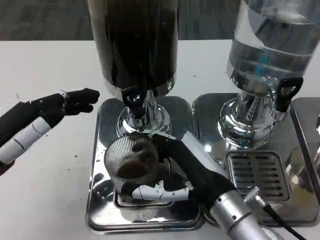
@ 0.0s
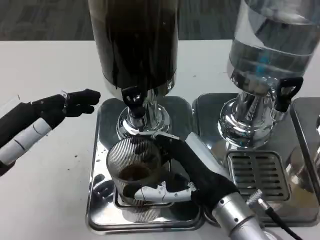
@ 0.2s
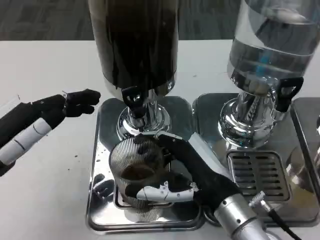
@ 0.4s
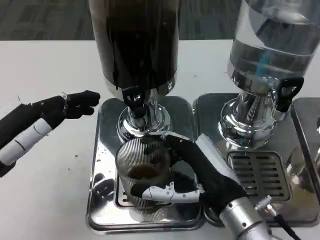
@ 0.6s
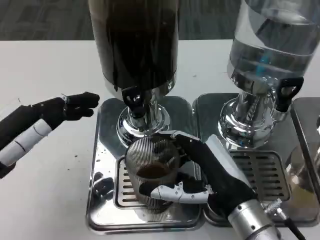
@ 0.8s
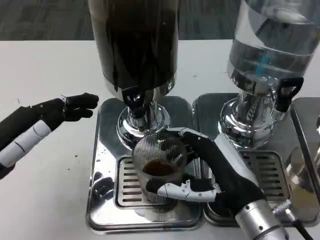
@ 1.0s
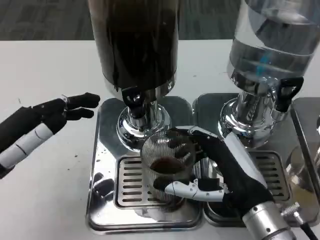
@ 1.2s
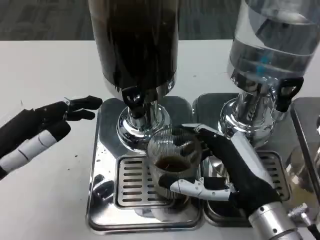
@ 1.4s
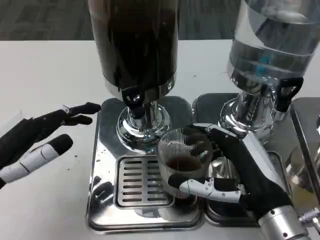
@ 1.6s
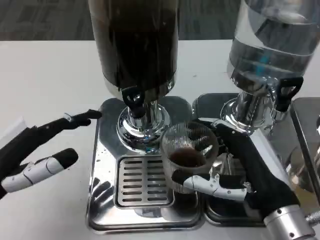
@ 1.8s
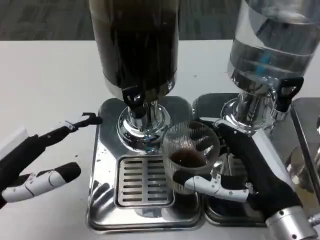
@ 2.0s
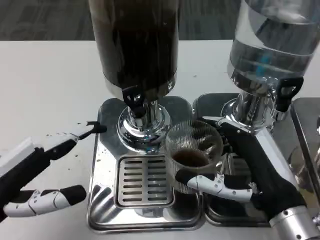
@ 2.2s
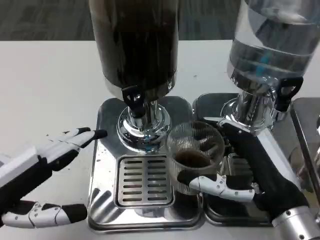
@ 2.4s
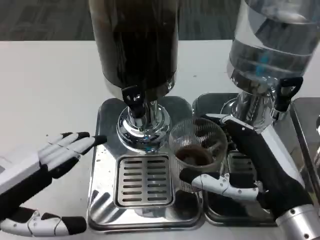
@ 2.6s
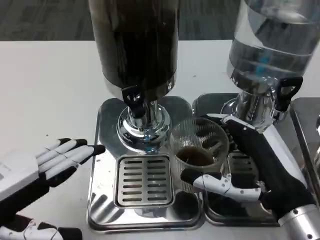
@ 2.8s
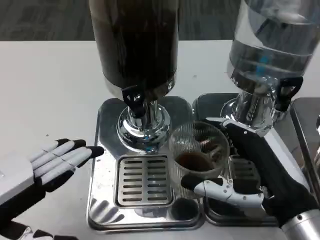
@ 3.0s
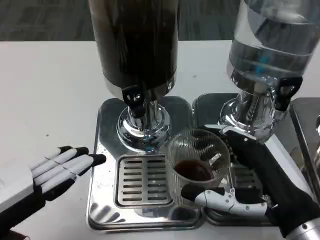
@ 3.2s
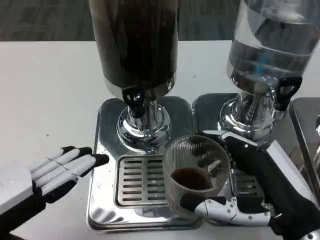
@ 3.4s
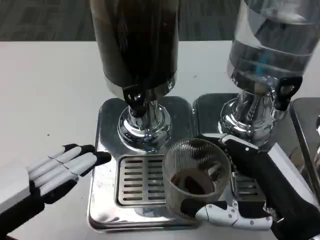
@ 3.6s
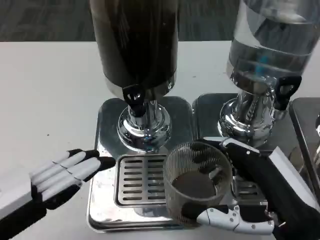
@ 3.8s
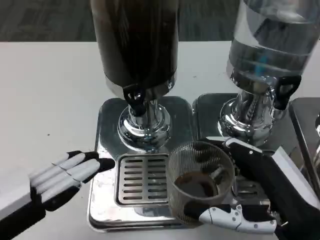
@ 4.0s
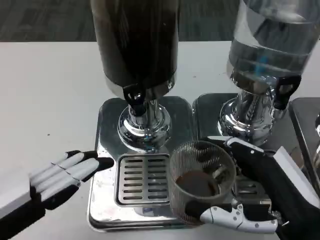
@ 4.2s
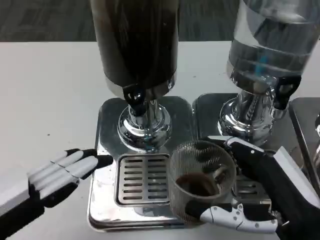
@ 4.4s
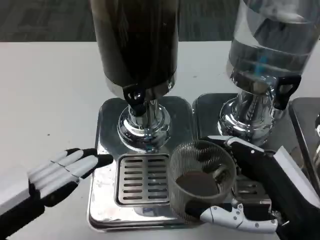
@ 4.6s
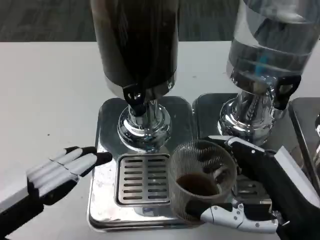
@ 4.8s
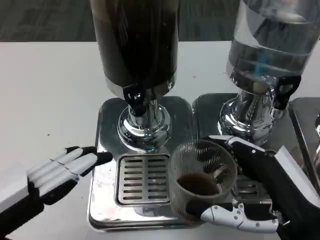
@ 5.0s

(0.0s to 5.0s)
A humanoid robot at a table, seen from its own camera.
Task of the whole recording: Grasp the cup under the faucet to collect the drink, then remove the cup.
0.0s - 1.6s: The right hand changes place by roughly 5 cm.
1.6s - 3.4s: The left hand moves backward, roughly 5 cm. Meanwhile the right hand ends up some 5 cm from where it was.
3.4s - 5.0s: The hands move only a little.
